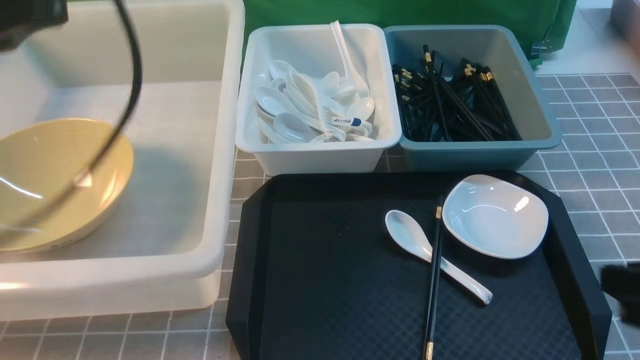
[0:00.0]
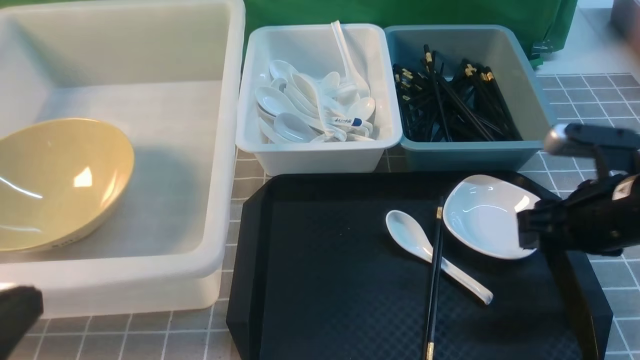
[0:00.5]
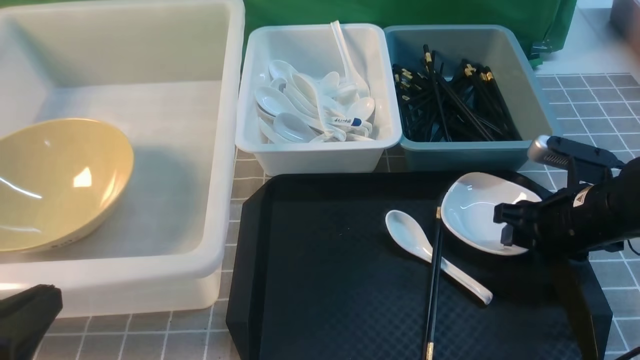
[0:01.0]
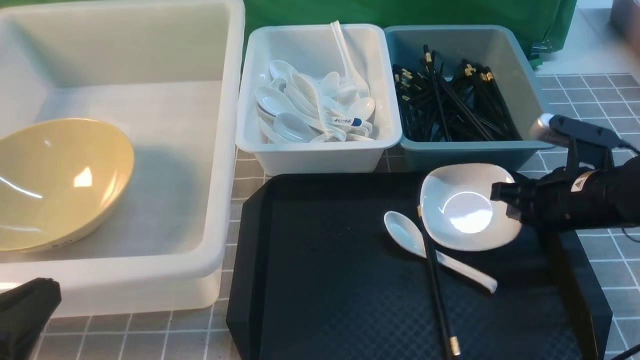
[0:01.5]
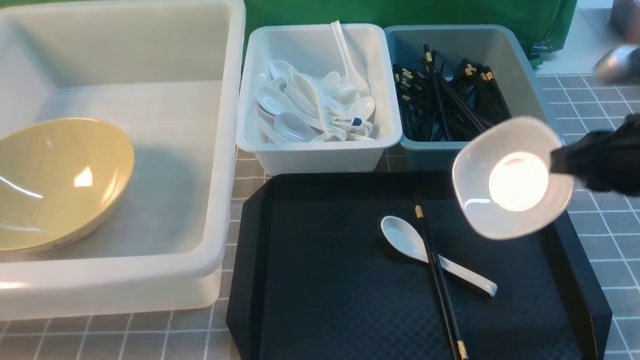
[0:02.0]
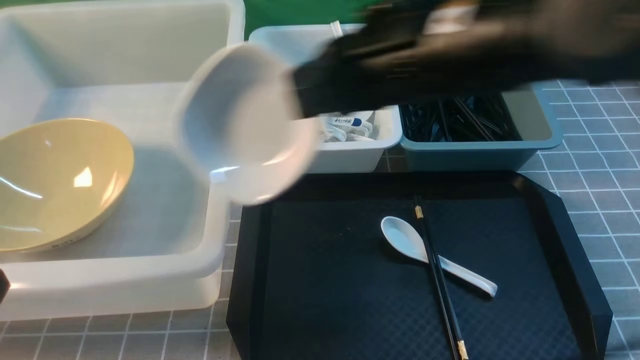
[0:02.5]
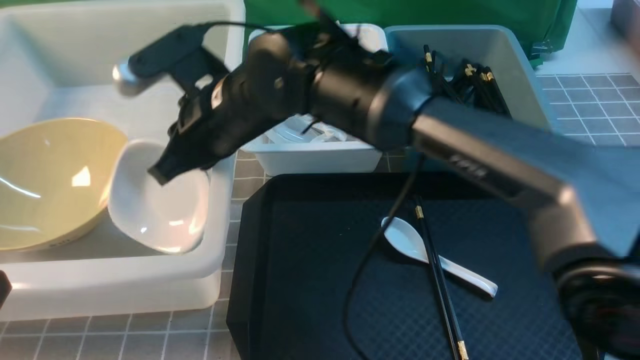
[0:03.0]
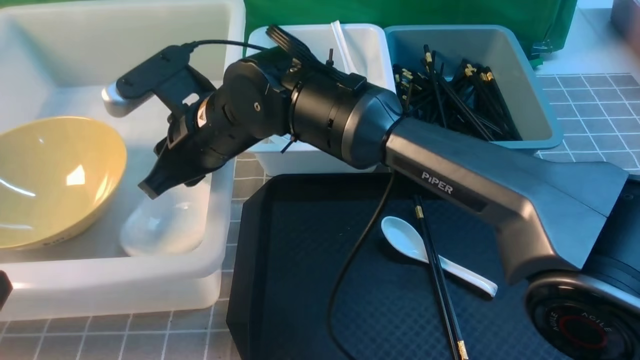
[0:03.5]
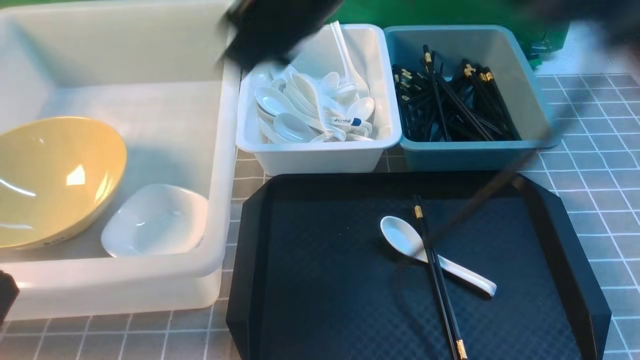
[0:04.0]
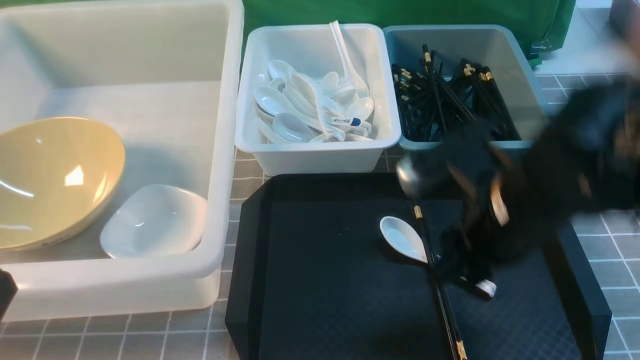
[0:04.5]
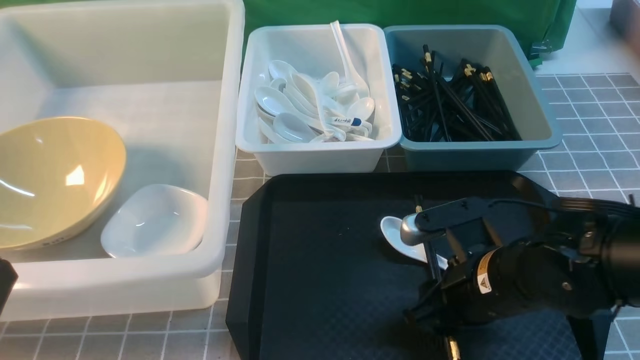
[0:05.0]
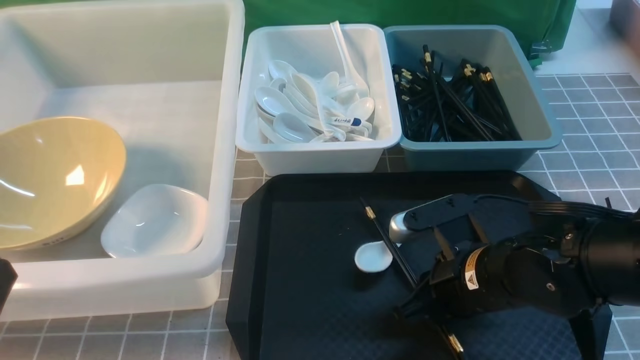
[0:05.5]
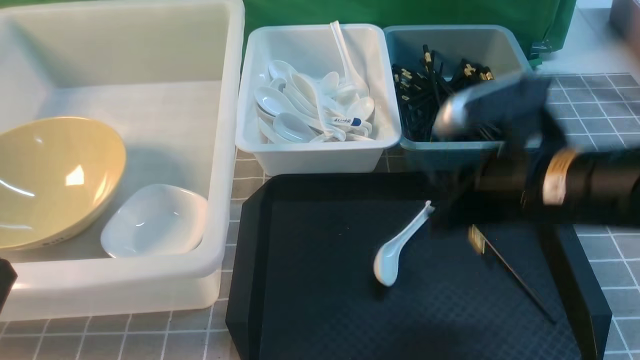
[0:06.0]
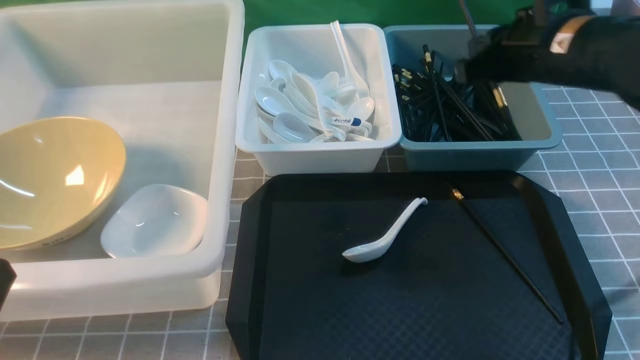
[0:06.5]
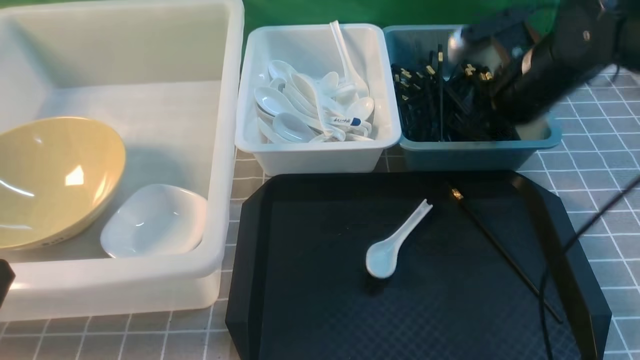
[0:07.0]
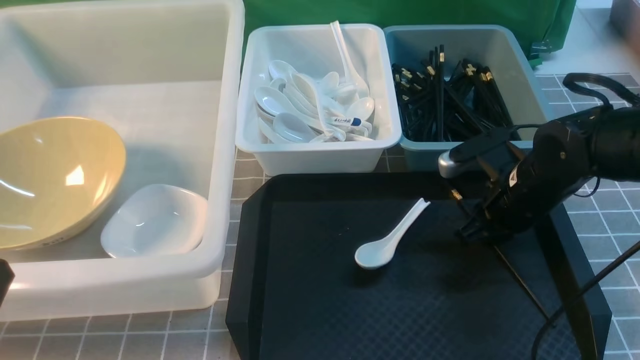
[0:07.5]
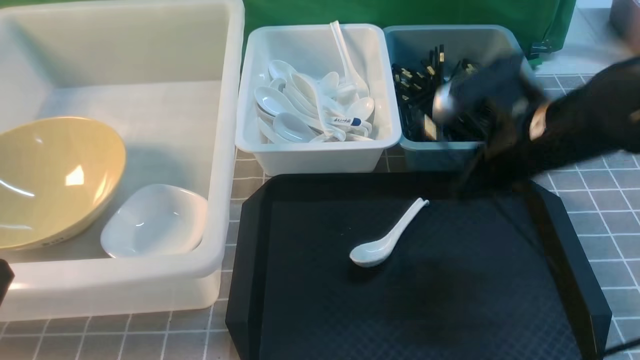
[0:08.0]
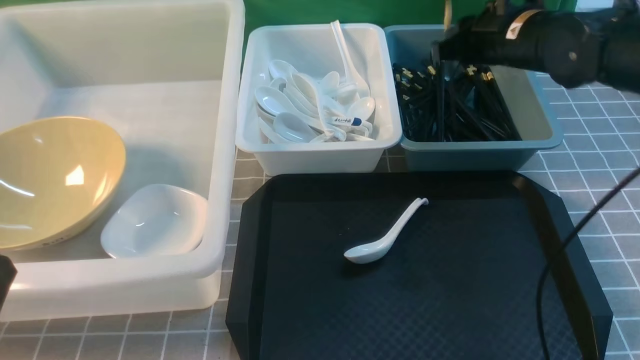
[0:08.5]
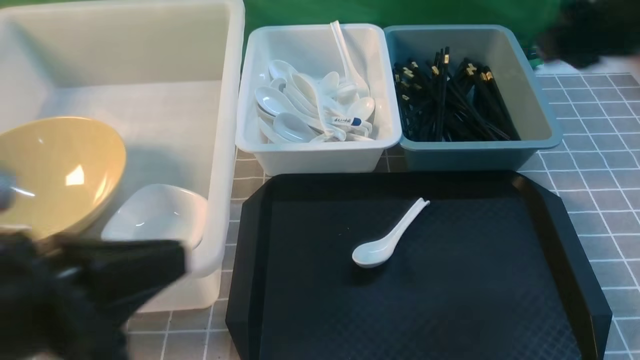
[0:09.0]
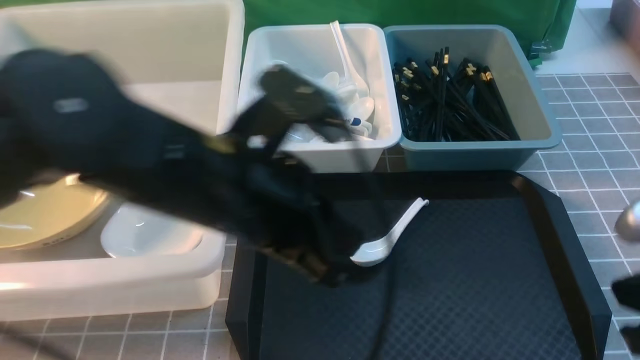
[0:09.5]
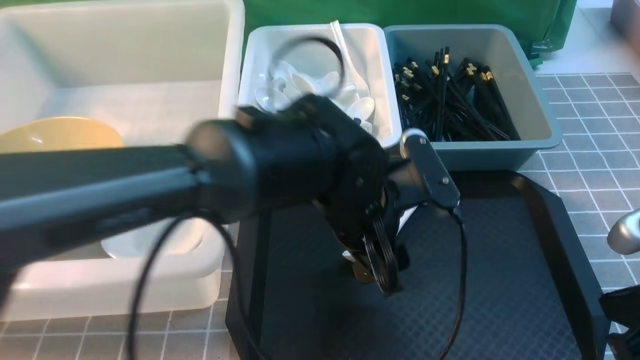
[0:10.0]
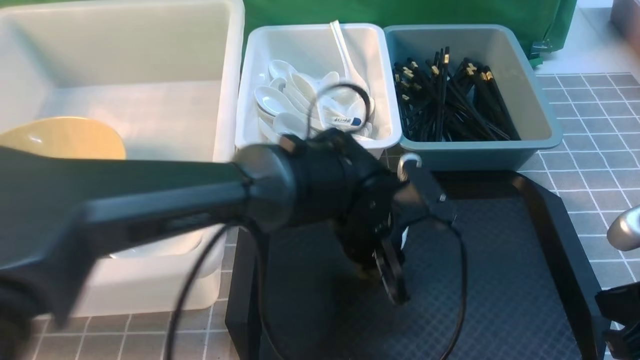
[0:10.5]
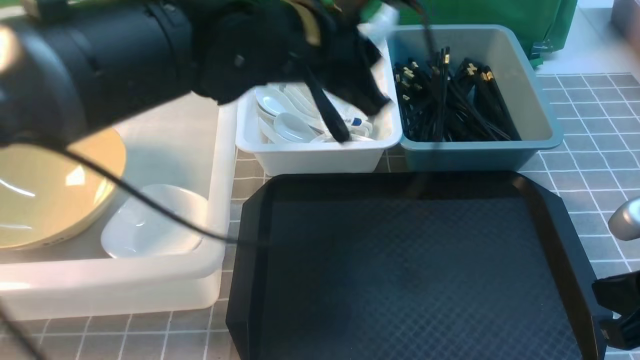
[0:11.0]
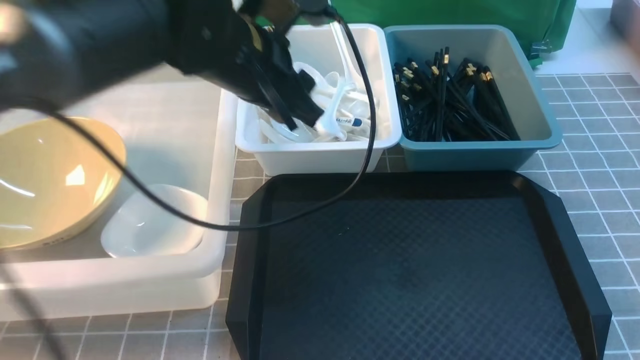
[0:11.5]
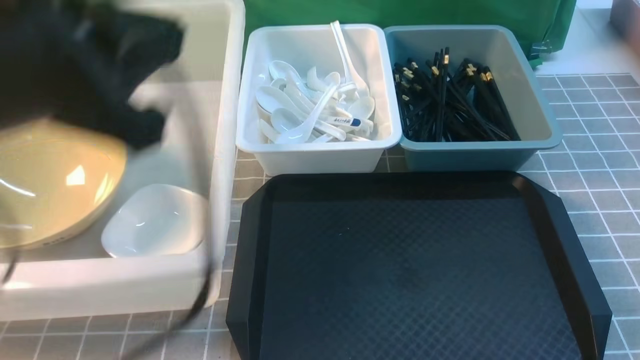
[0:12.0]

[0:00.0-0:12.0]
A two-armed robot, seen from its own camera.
Task of the whole recording: on grey table put chopsticks spoon bowls plates into blue grey white boxes.
Step, 0:00.0 to 0:01.5: use the right arm to grab the plate.
Step, 0:02.0 to 0:03.5: use the right arm to put the plate into the large storage box on the left.
Step, 0:04.0 to 0:05.0: use the right arm to grab a chopstick.
Step, 0:05.5 to 0:07.0: use the right arm to put a chopstick into the small storage box on the right.
Step, 0:08.0 to 0:08.5: use the right arm to put a chopstick into the small storage box on the right.
Step, 0:09.0 to 0:10.5: use the left arm to grab the soup spoon in the middle.
0:00.0 to 0:02.0: The left gripper heads backward and downward, covering about 25 cm, while the right gripper moves forward, roughly 15 cm, and closes.
0:02.0 to 0:04.0: The right gripper goes approximately 30 cm to the left and upward, and opens its fingers.
0:04.0 to 0:06.0: The right gripper goes roughly 25 cm to the right, downward and backward, and closes its fingers.
0:06.0 to 0:08.0: The right gripper shifts about 10 cm forward, and opens, then closes again.
0:08.0 to 0:10.0: The right gripper moves backward and to the right, about 20 cm, and opens and closes again. The left gripper shifts approximately 35 cm to the right and forward, and opens up.
0:10.0 to 0:12.0: The right gripper goes approximately 10 cm backward. The left gripper heads upward, to the left and backward, covering roughly 25 cm, and closes up.

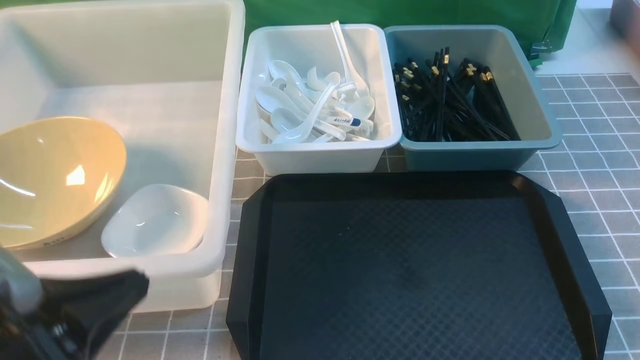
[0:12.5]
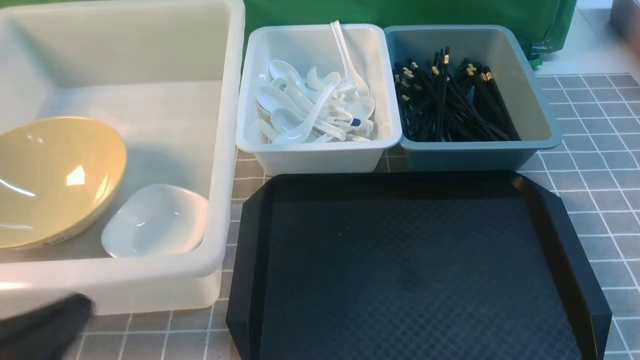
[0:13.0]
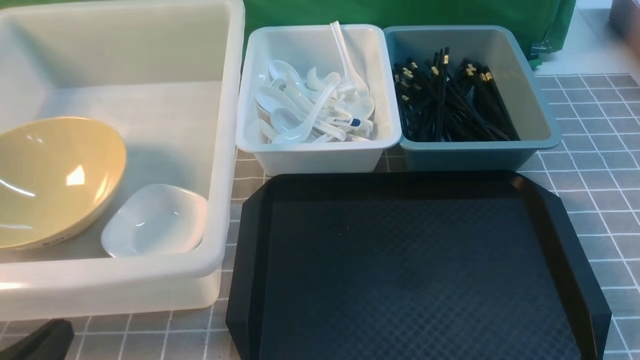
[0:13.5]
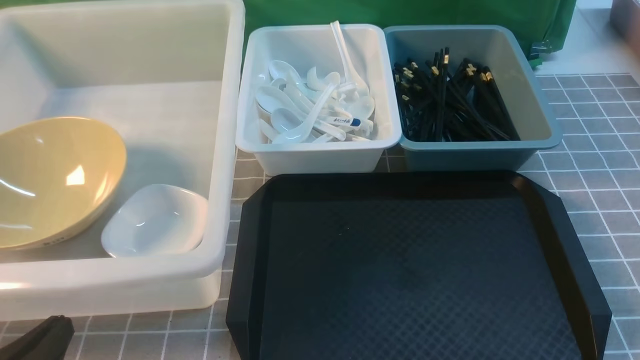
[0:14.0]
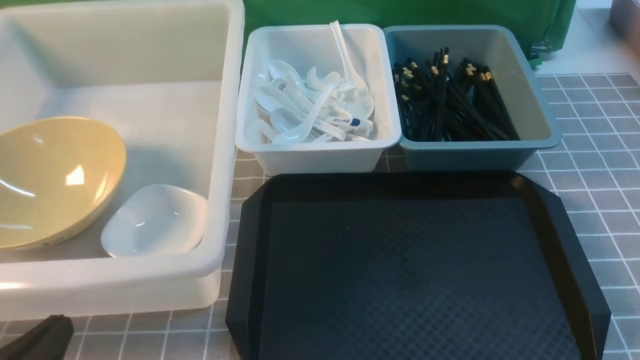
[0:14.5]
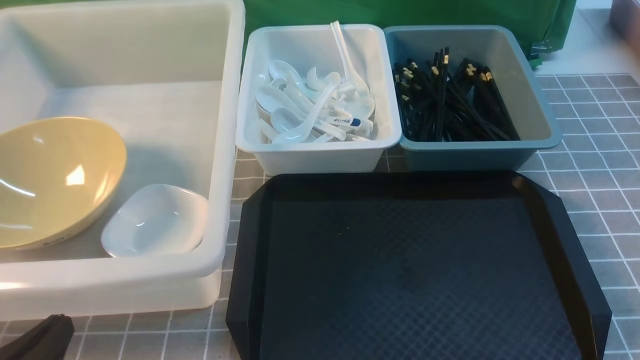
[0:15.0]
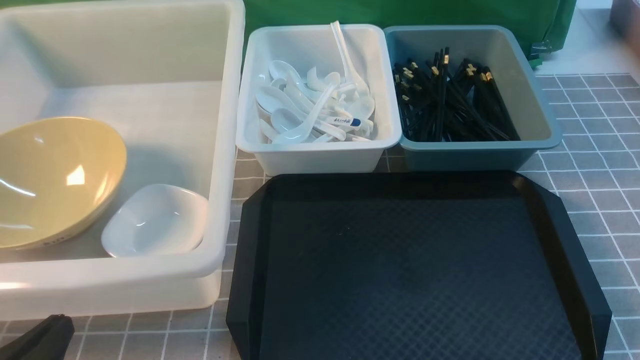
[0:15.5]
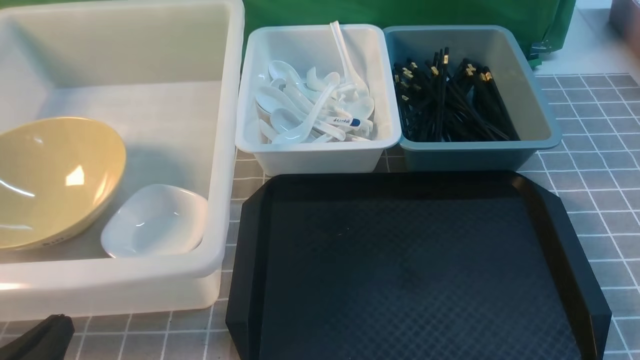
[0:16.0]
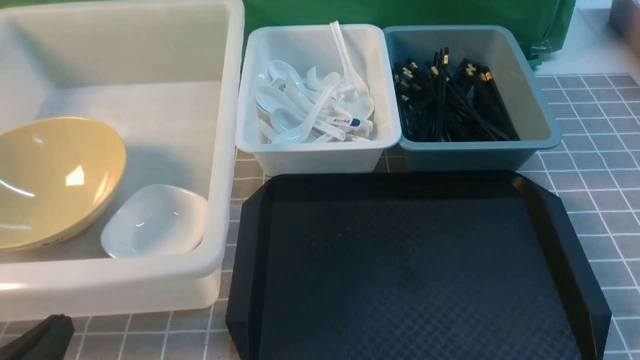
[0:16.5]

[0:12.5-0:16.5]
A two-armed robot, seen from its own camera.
Task of the whole recording: on grey table put chopsticks spoon bowls plates into blue grey white boxes.
0:12.5 to 0:14.5: The left gripper shifts some 10 cm downward.
